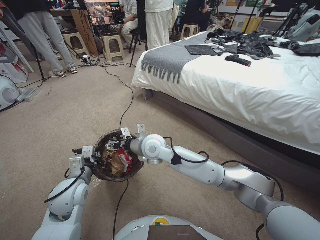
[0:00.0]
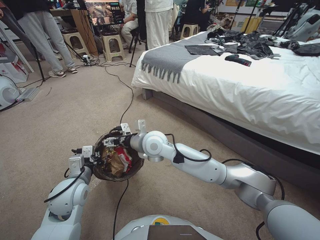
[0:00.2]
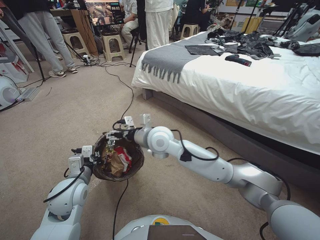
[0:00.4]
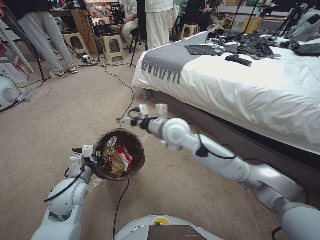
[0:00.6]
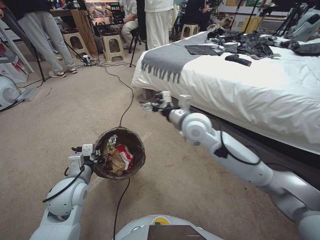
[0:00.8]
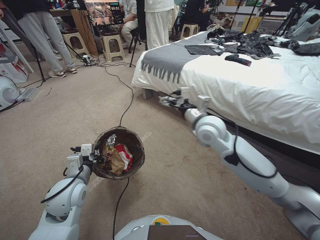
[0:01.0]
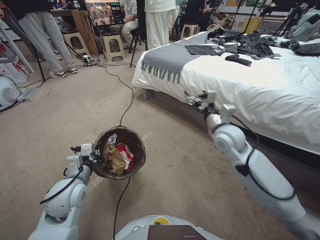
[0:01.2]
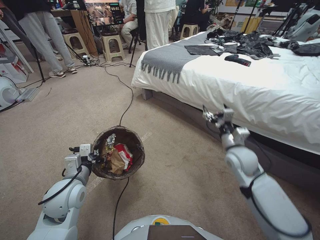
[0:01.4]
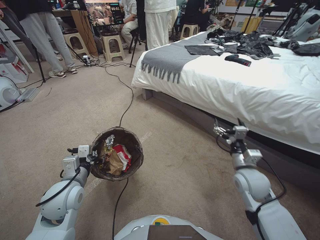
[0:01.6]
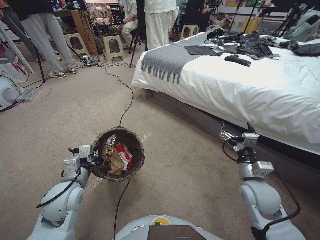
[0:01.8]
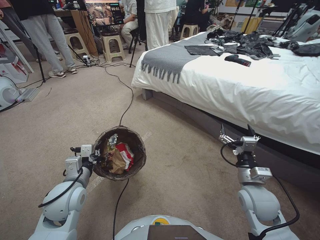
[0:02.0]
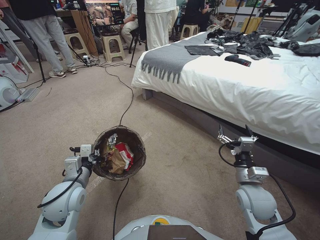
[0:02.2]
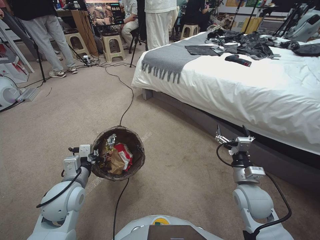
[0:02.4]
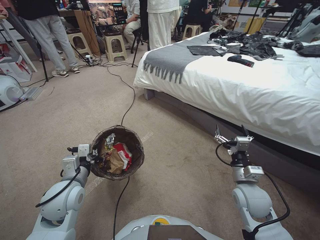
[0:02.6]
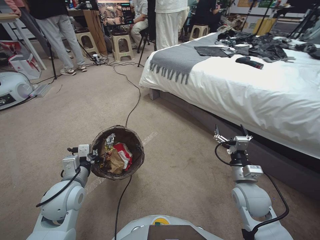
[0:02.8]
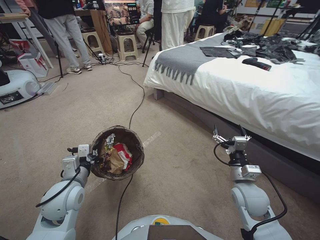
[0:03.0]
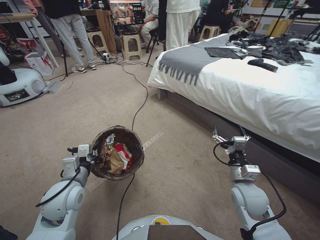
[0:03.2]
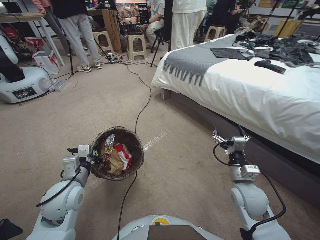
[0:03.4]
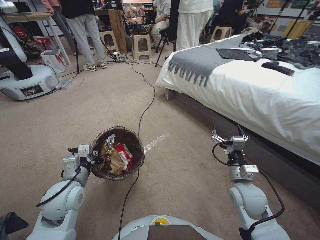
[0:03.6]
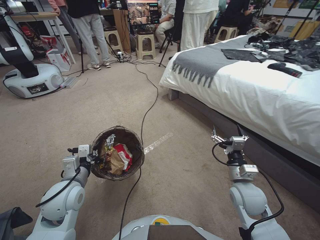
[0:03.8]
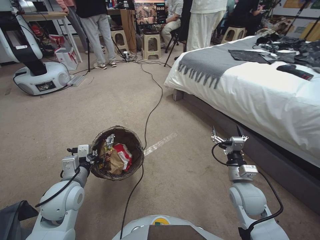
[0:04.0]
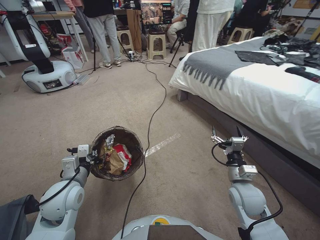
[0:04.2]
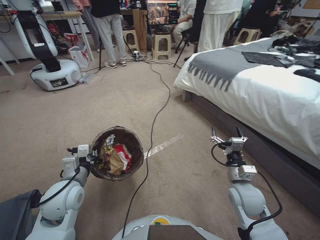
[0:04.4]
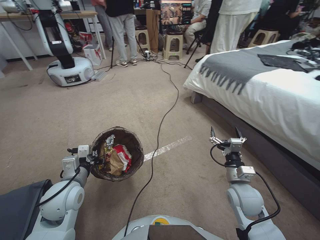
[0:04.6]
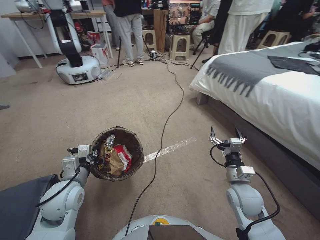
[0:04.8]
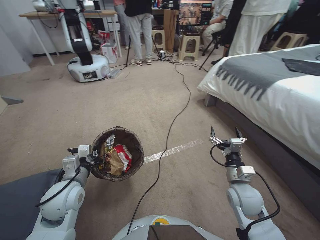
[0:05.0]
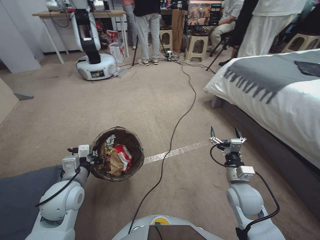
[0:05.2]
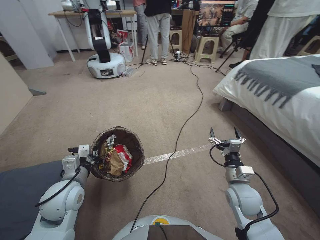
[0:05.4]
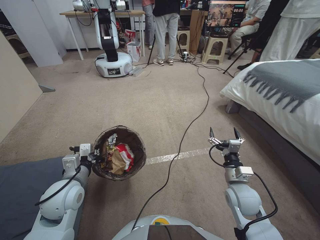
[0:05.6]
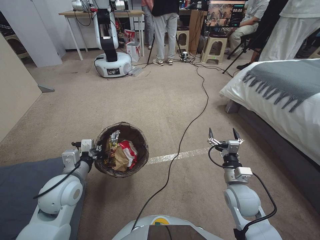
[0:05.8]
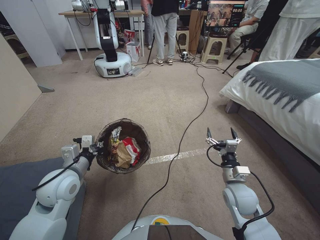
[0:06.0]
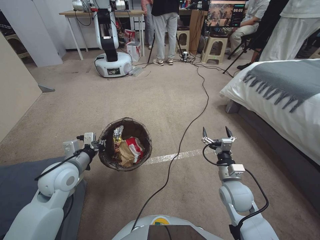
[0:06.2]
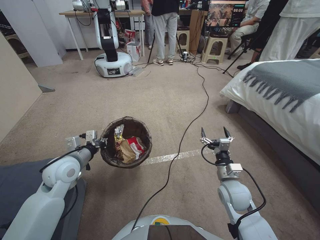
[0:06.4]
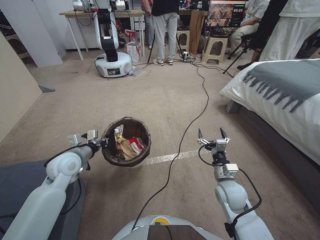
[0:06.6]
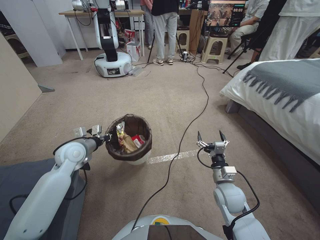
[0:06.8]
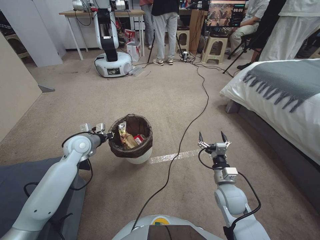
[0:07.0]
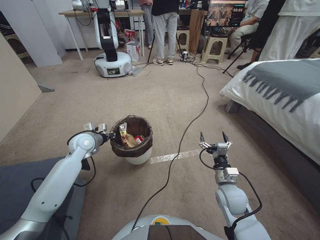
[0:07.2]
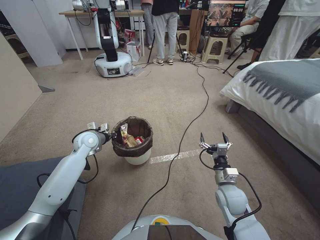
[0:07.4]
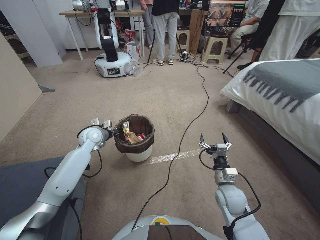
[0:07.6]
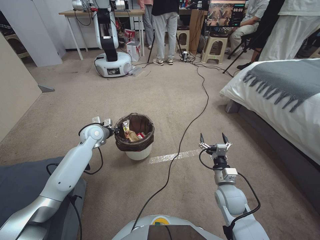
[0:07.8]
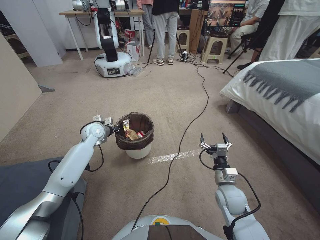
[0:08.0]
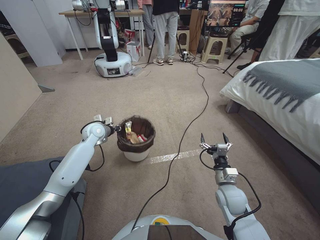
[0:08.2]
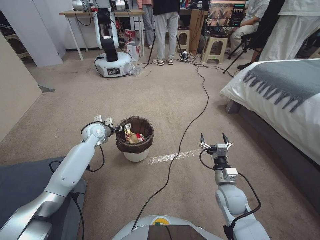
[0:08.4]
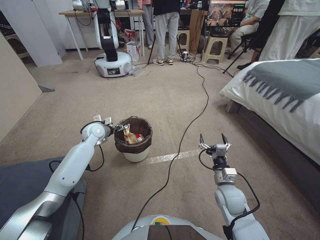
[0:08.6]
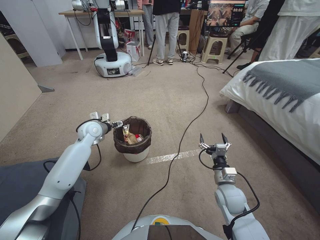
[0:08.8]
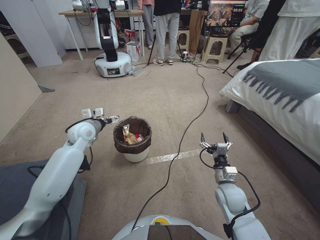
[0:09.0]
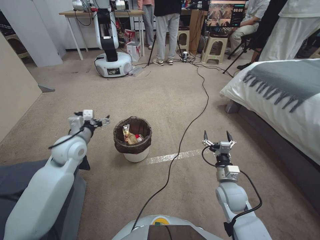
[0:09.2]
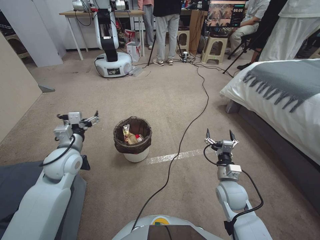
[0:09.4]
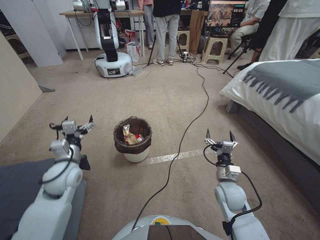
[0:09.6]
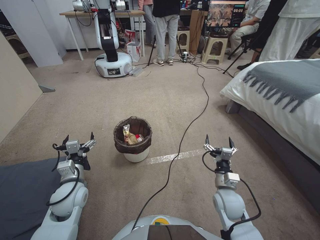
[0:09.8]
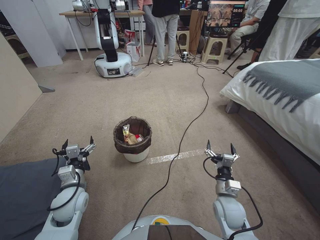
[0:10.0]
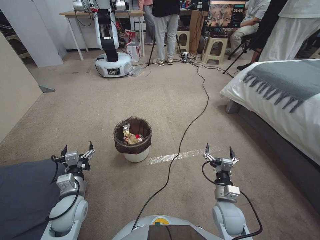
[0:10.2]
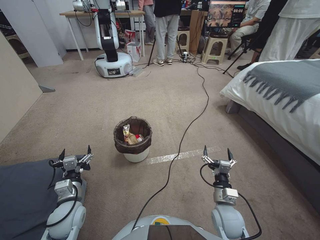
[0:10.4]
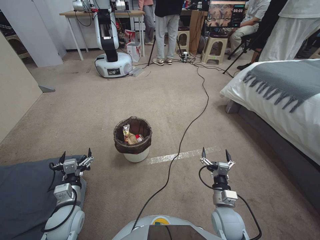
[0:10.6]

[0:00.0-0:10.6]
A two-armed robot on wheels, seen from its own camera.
Task of the whole recording: Pick up the trash bin, then pick up the garbage from the floor and place it into the trash bin.
0:00.0 to 0:01.6: The right gripper goes some 35 cm to the right.
0:01.6 to 0:03.0: The right gripper heads backward, covering roughly 5 cm.
0:06.0 to 0:07.6: The left gripper travels forward by about 20 cm.
0:07.6 to 0:09.0: The left gripper shifts approximately 5 cm upward, and opens up.
0:09.0 to 0:10.6: The left gripper goes about 30 cm backward and downward. Meanwhile the right gripper goes roughly 5 cm backward.
